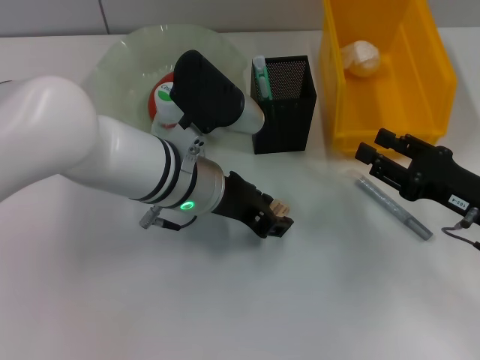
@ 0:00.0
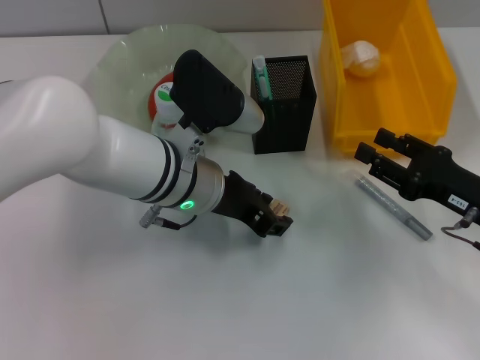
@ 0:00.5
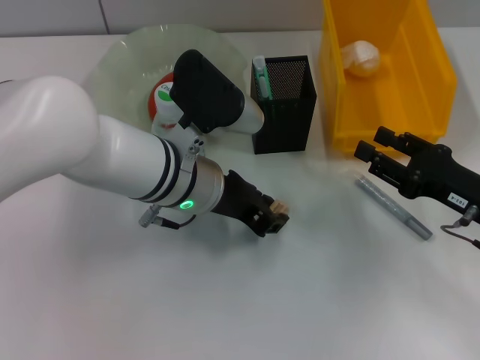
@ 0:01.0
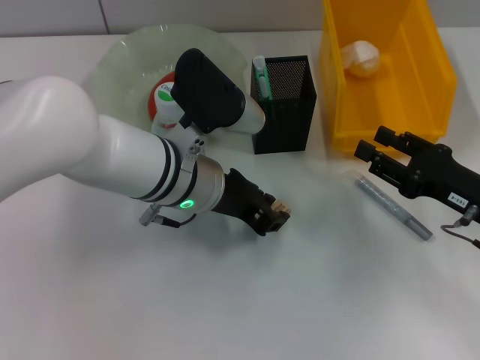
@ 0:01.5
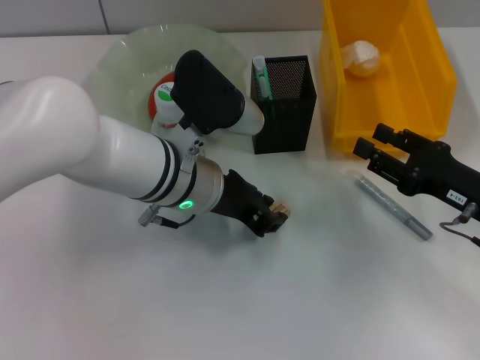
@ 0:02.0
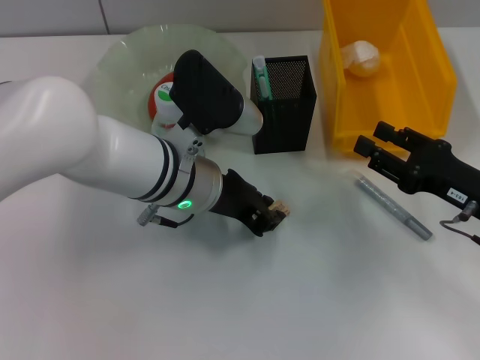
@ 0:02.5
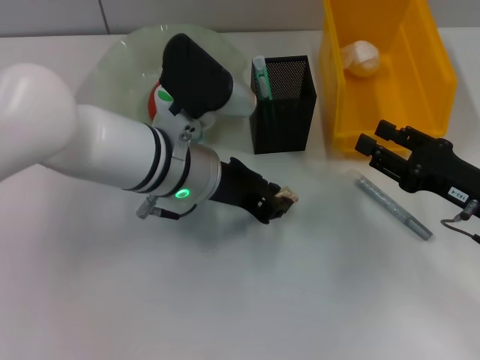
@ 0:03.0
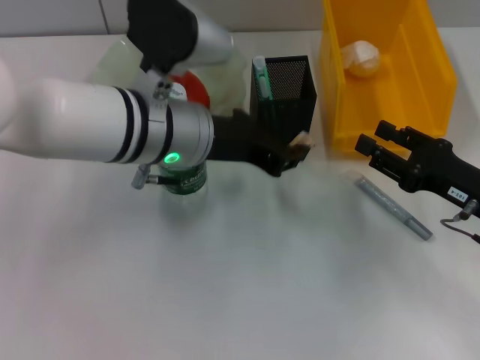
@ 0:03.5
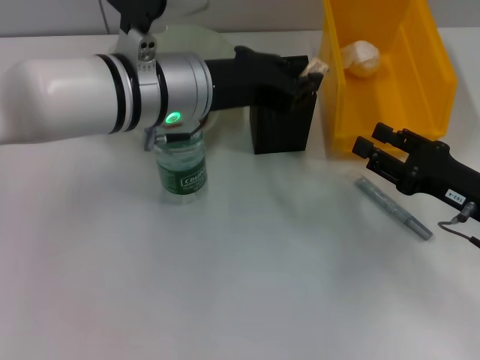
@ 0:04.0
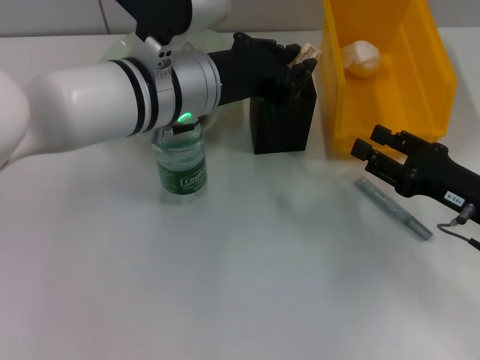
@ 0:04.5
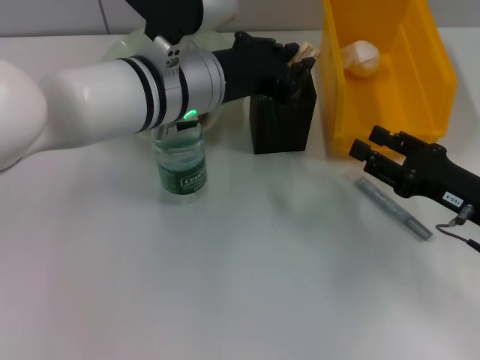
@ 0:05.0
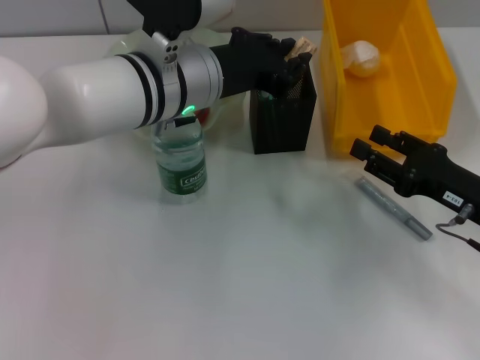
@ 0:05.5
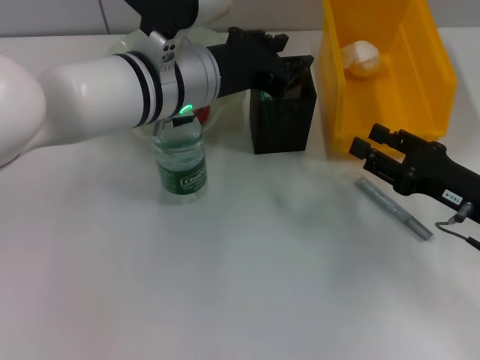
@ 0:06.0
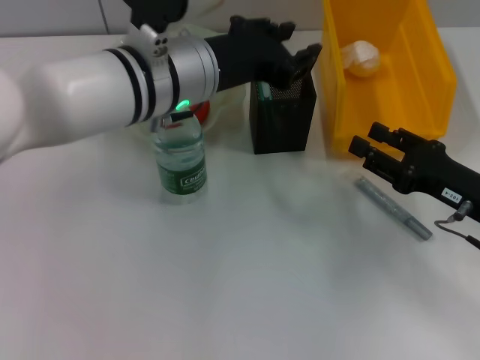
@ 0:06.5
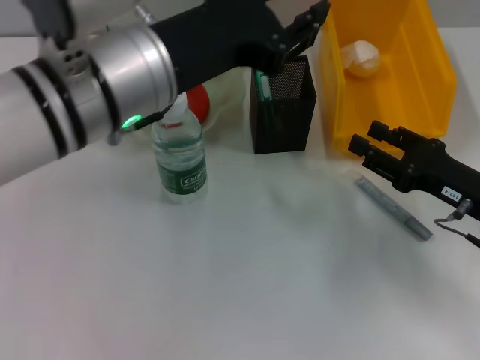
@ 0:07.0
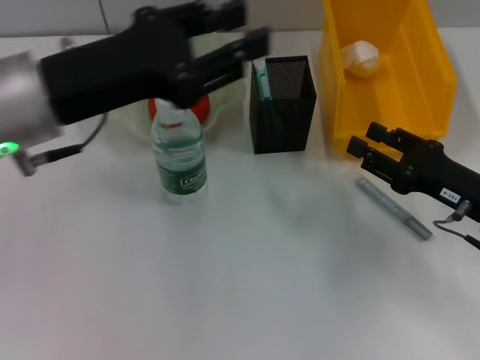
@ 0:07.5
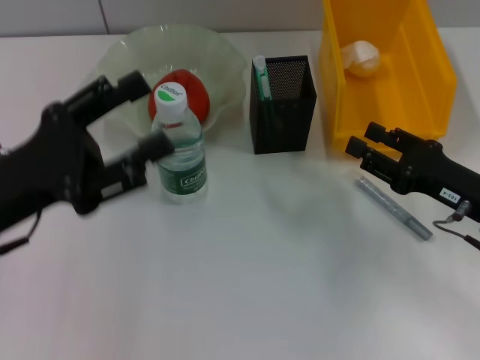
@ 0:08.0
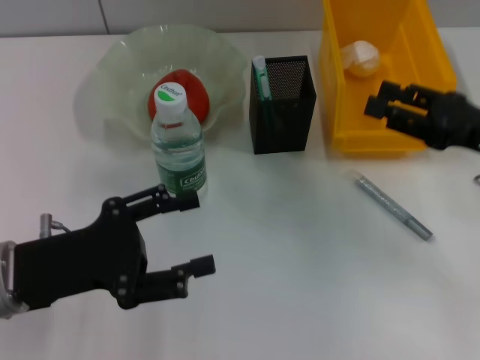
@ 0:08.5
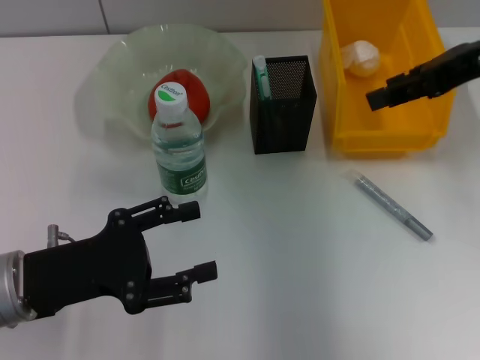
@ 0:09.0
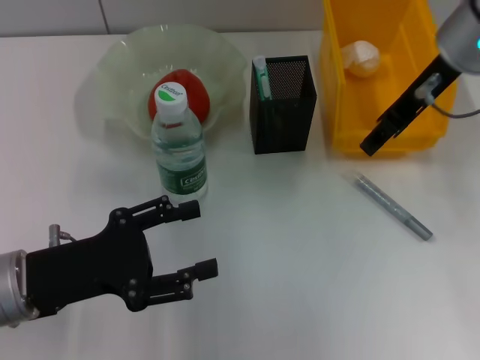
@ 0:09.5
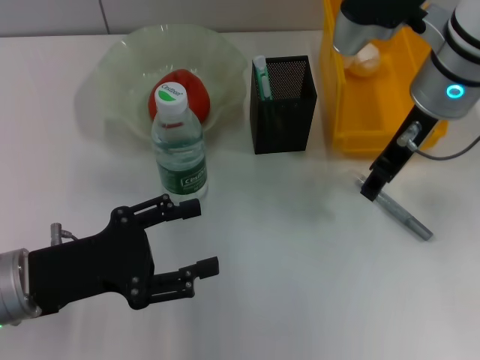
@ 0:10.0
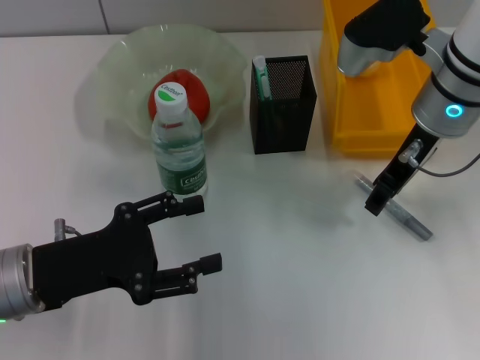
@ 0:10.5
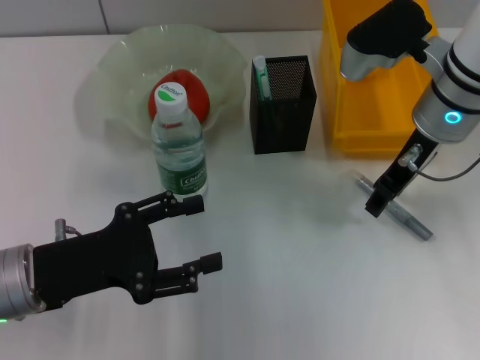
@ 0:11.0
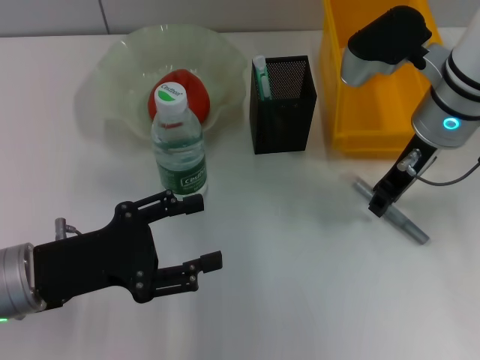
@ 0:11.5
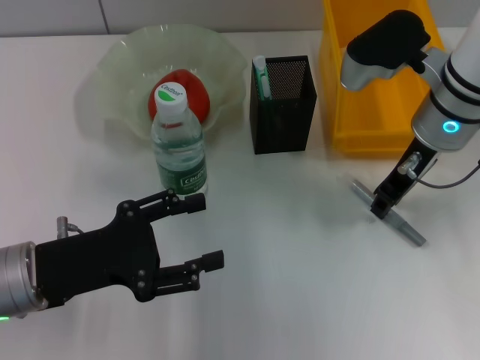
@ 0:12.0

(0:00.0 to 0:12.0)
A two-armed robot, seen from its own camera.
Step, 0:00.0 - 0:02.0: Grab the eraser with the left hand.
Step, 0:02.5 - 0:06.0: Place the eraser into the pen holder with the left hand.
0:00.0 - 0:02.0: The left gripper closes.
0:02.0 - 0:04.0: The left gripper is displaced upward by roughly 5 cm.
0:04.0 - 0:06.0: The grippers stay close to where they were, moving slightly.
0:06.0 - 0:08.0: The left gripper moves to the left and backward, roughly 20 cm, and opens its fingers.
0:08.0 - 0:10.0: The left gripper travels downward by about 5 cm, and opens up, while the right gripper shifts roughly 20 cm upward, forward and to the left.
0:10.0 - 0:12.0: The grippers stay close to where they were, moving slightly.

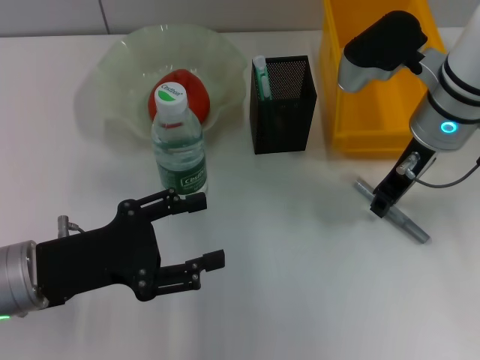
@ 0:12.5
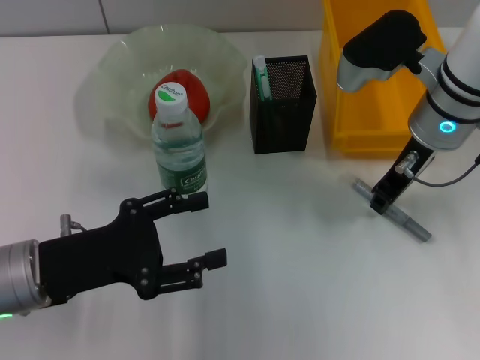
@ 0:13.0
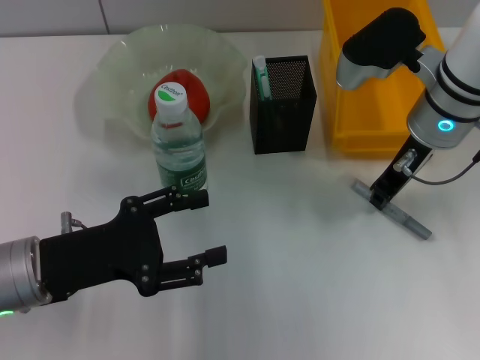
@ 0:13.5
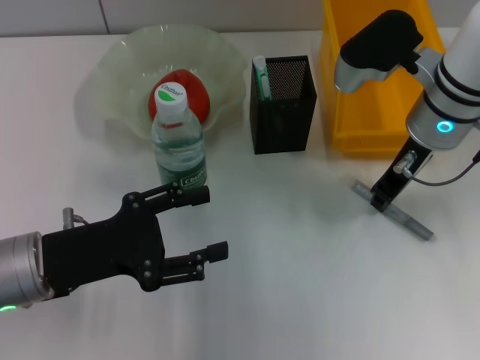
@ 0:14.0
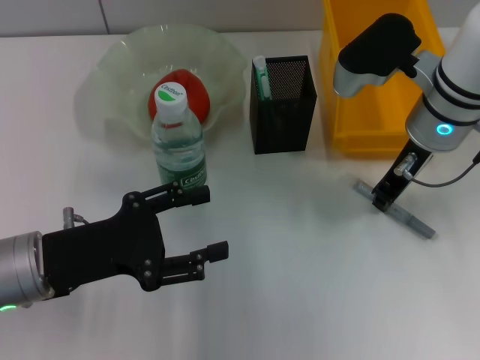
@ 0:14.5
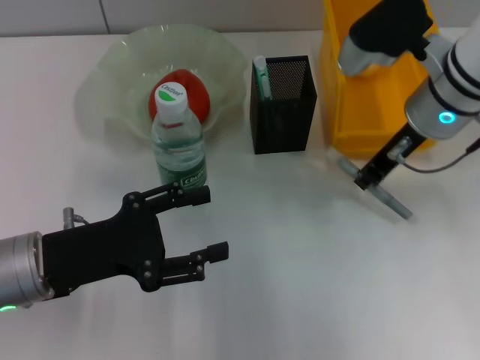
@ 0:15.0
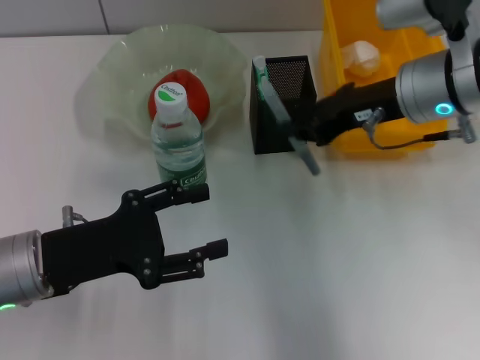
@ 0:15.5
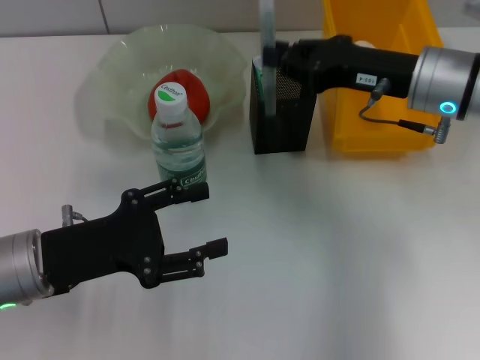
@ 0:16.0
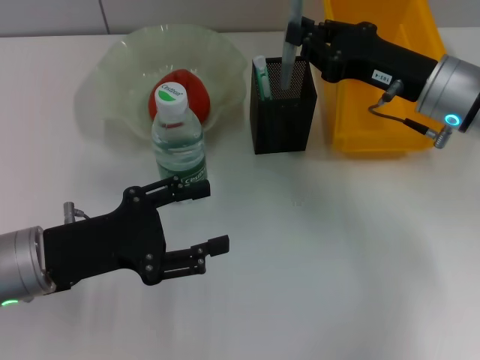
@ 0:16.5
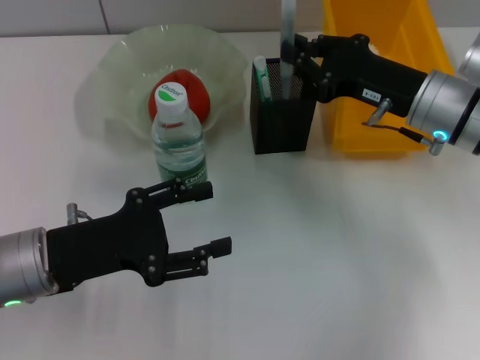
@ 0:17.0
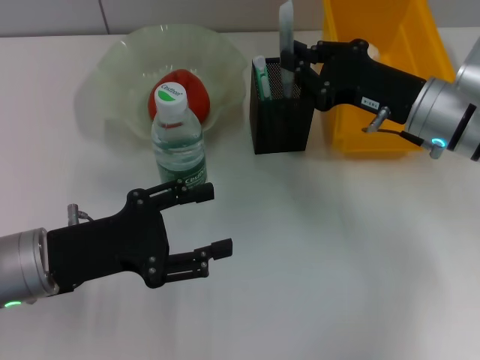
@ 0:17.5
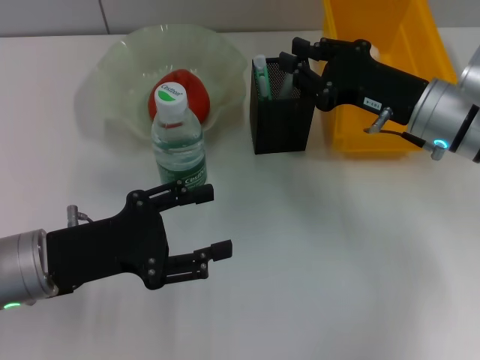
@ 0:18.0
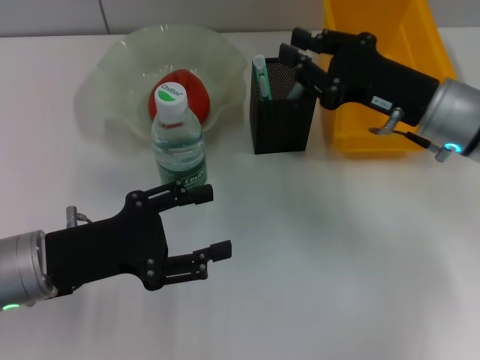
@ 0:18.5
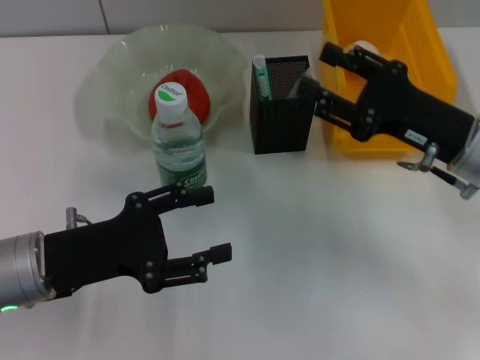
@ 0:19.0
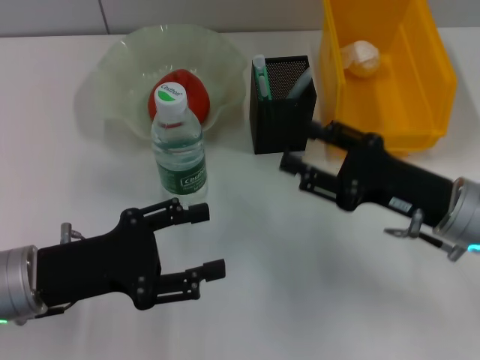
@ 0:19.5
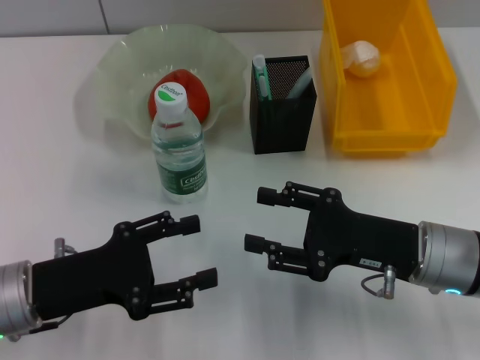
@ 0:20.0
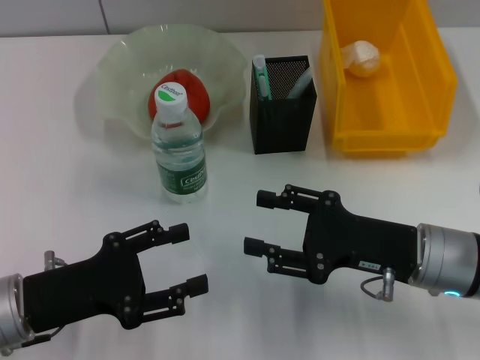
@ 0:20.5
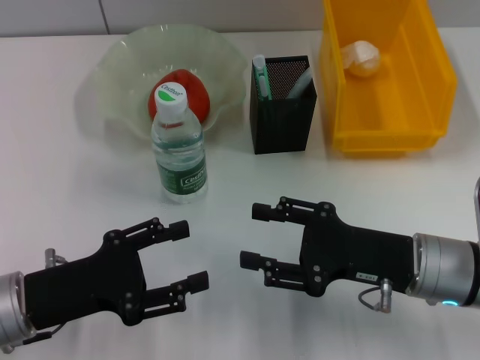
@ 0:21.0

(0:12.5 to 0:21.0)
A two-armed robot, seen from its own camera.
Step, 0:12.5 - 0:14.5: Grab the gray glue with the right hand.
Step, 0:15.0 - 0:18.5: Place the gray glue into the pen holder with the right hand.
0:12.5 - 0:14.5: The two grippers keep their place.
0:16.5 - 0:19.0: The right gripper heads backward, covering roughly 5 cm, and opens up.
0:19.0 - 0:21.0: The right gripper is displaced backward and downward by some 10 cm.

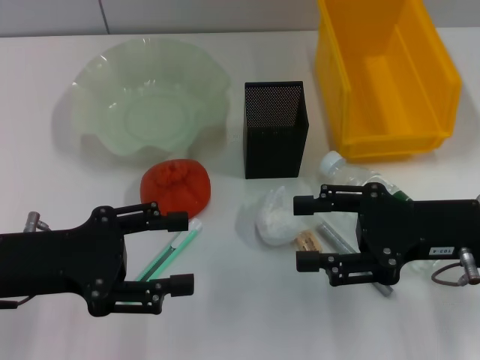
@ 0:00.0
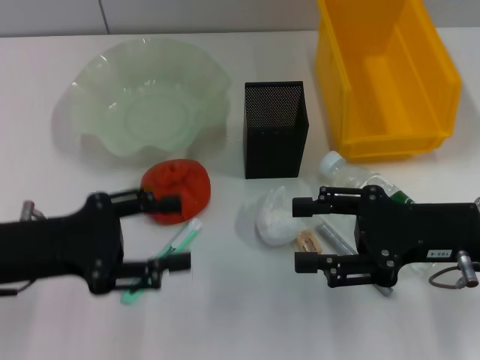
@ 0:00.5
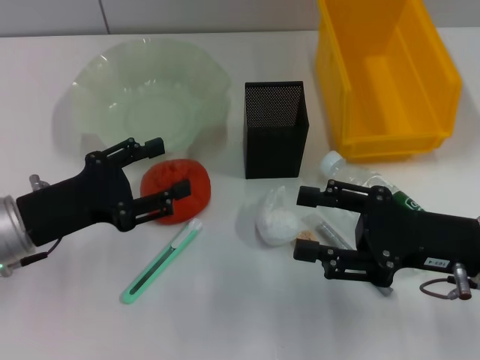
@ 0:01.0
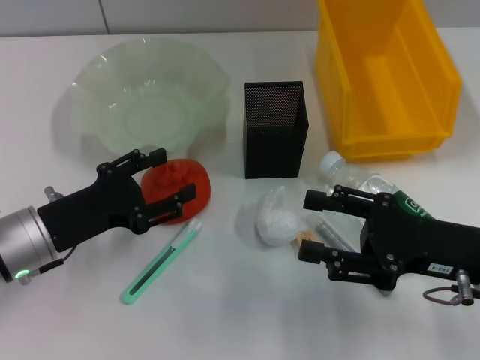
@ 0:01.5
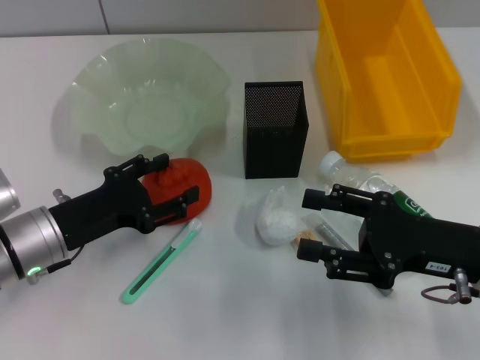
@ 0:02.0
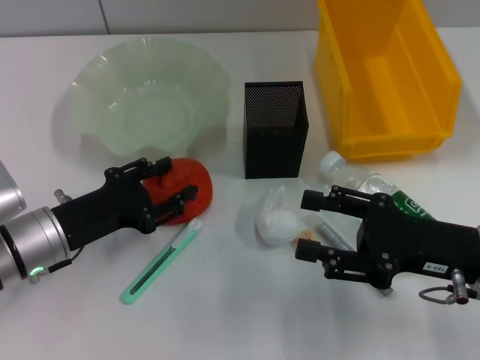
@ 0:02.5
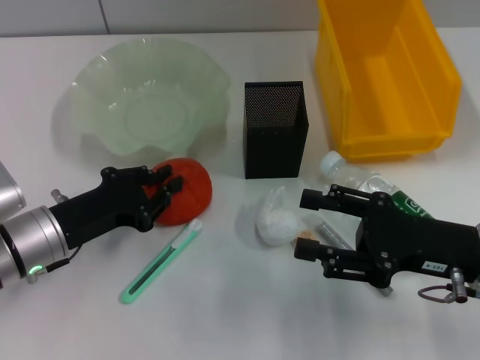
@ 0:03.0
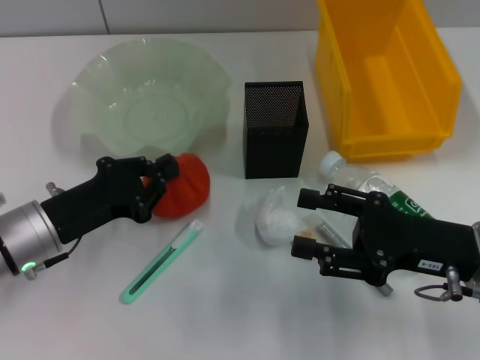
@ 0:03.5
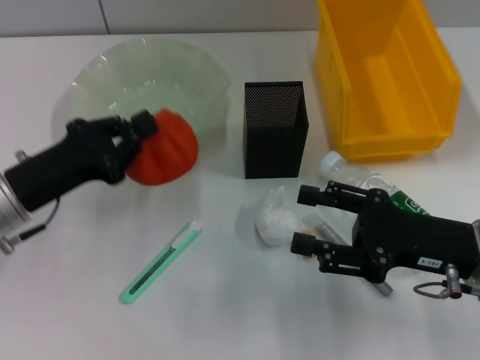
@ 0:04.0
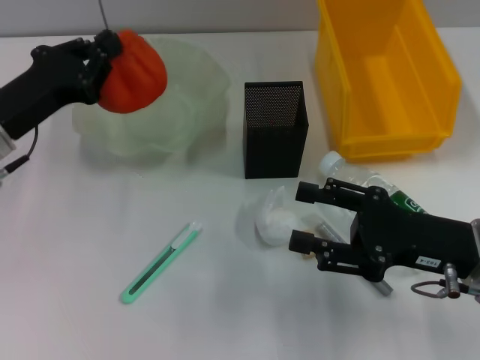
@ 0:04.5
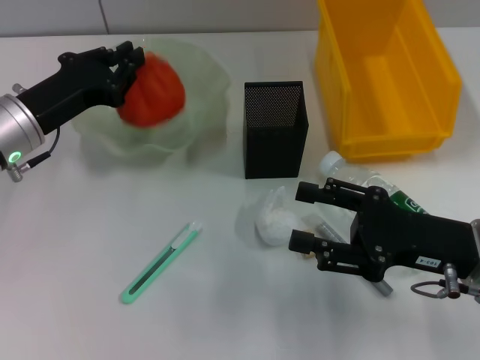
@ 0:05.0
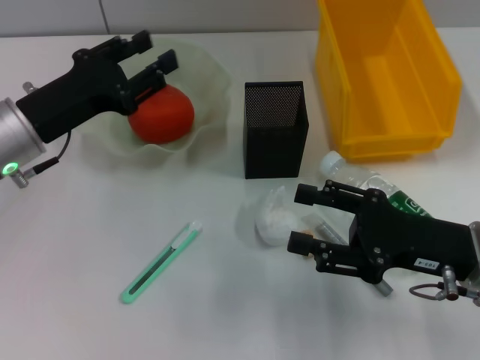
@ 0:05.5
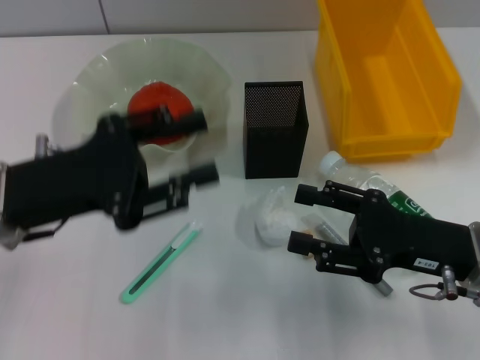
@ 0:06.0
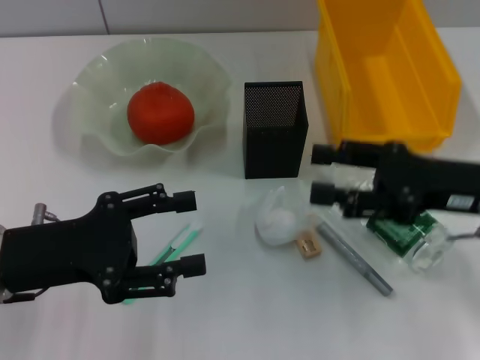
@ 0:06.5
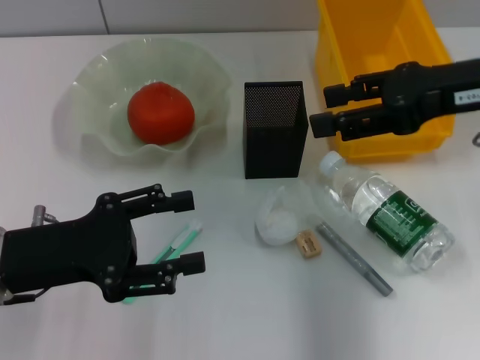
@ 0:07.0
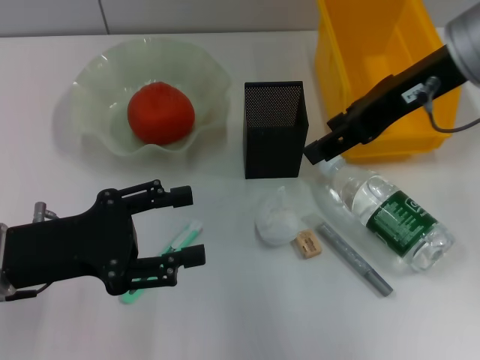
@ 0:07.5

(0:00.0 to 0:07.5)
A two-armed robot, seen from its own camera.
Step, 0:00.0 - 0:03.0: Grab the orange with the left hand.
Step, 0:03.5 - 0:05.0: Place the orange into the fruit bowl with the left hand.
0:00.0 - 0:02.0: The left gripper heads downward, covering about 5 cm.
0:02.0 - 0:04.0: The left gripper closes up.
0:04.0 - 0:05.5: The left gripper travels forward by approximately 5 cm, and opens its fingers.
0:05.5 - 0:07.5: The right gripper is displaced upward and forward by some 20 cm, while the left gripper heads backward, covering approximately 10 cm, and opens up.
